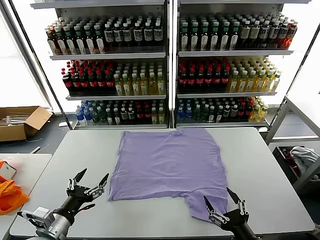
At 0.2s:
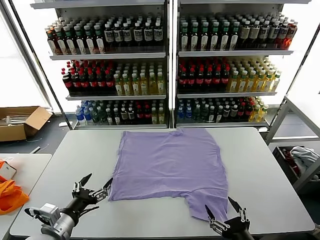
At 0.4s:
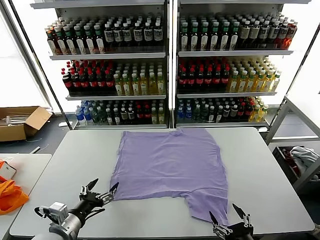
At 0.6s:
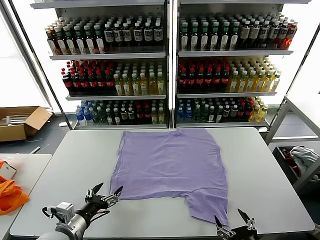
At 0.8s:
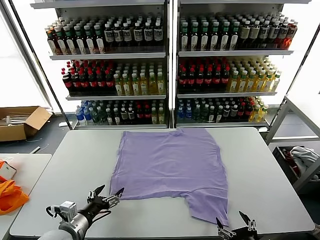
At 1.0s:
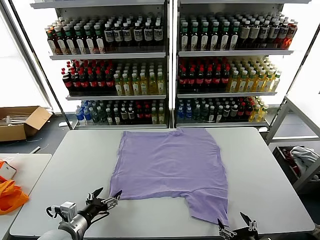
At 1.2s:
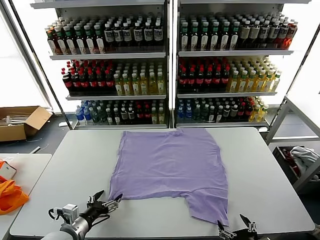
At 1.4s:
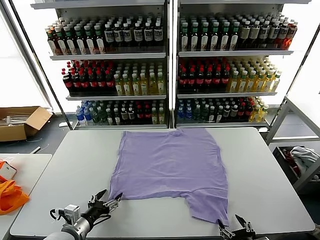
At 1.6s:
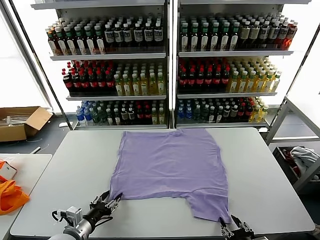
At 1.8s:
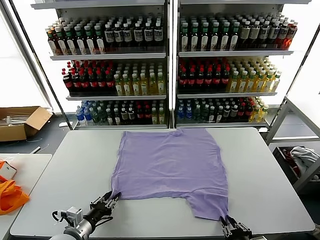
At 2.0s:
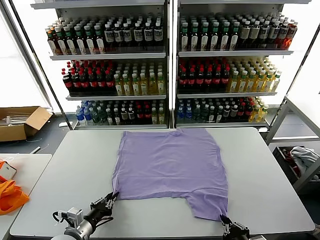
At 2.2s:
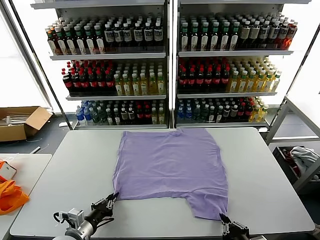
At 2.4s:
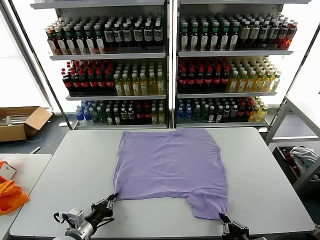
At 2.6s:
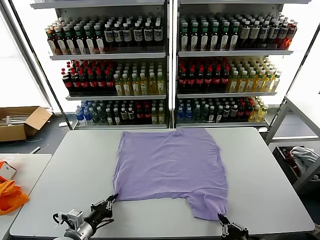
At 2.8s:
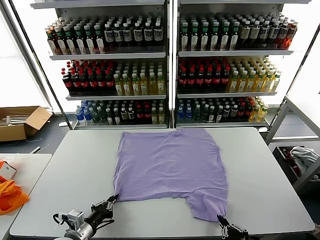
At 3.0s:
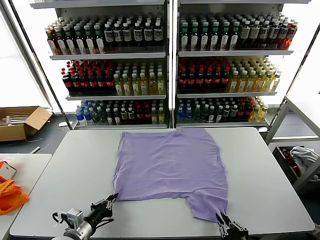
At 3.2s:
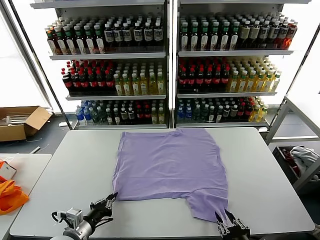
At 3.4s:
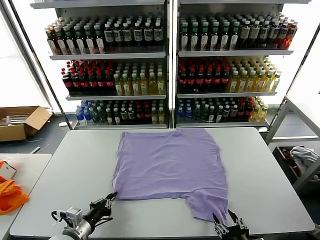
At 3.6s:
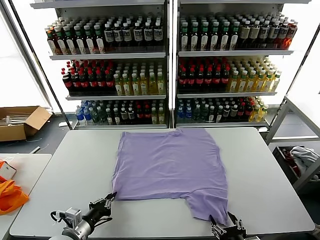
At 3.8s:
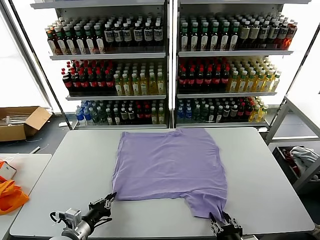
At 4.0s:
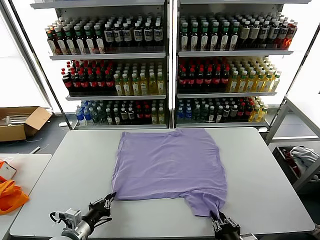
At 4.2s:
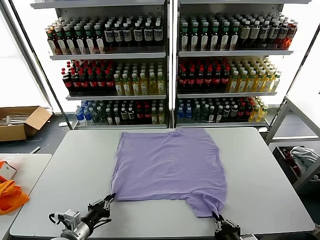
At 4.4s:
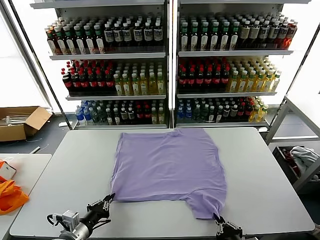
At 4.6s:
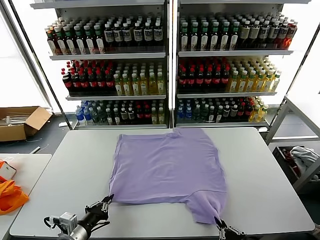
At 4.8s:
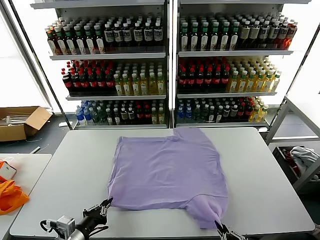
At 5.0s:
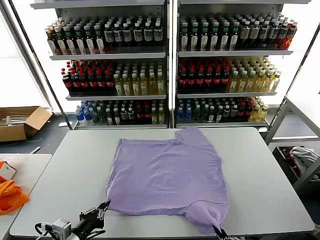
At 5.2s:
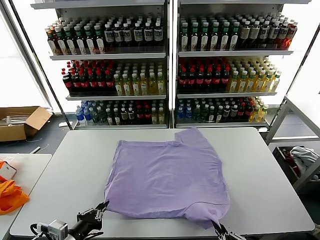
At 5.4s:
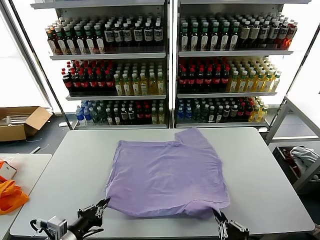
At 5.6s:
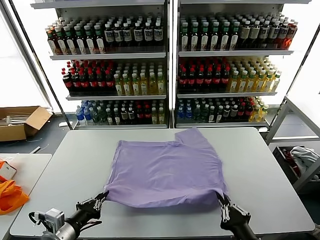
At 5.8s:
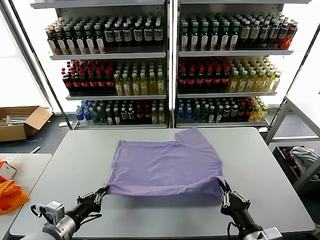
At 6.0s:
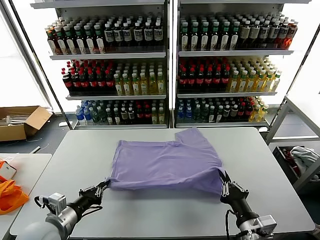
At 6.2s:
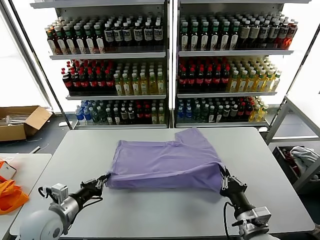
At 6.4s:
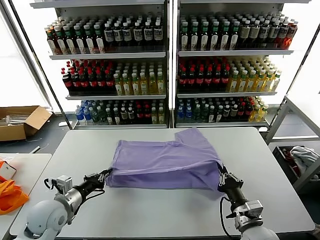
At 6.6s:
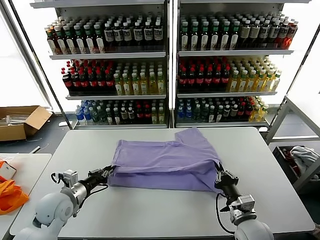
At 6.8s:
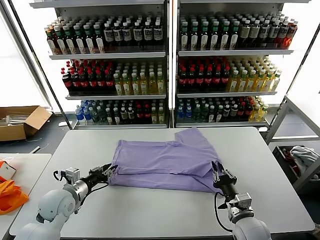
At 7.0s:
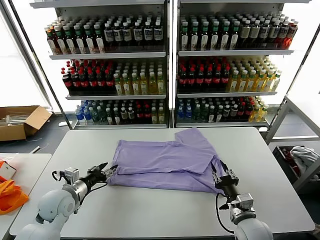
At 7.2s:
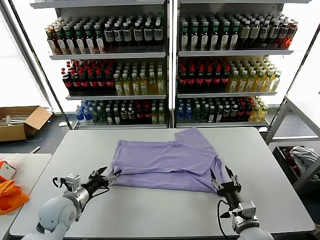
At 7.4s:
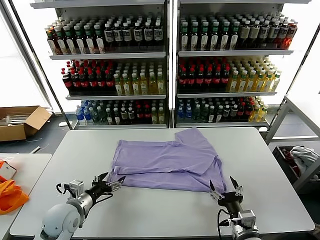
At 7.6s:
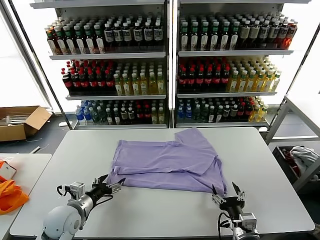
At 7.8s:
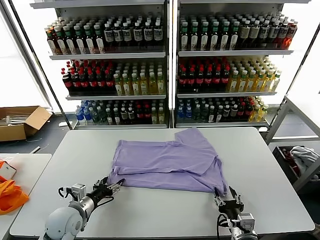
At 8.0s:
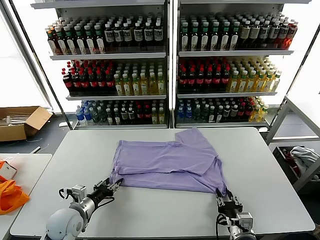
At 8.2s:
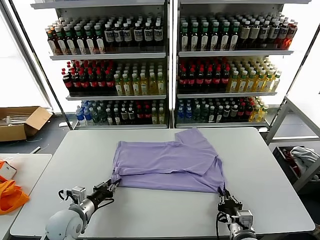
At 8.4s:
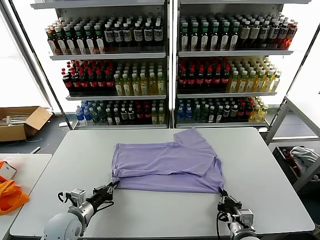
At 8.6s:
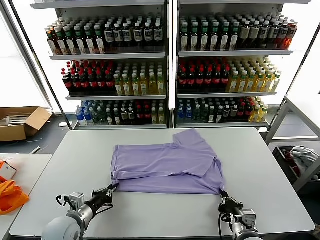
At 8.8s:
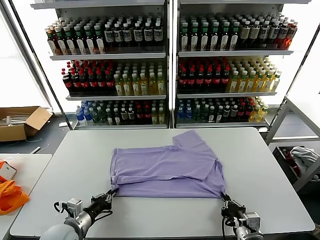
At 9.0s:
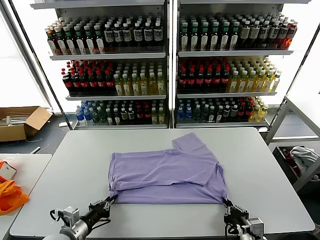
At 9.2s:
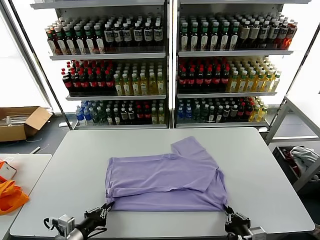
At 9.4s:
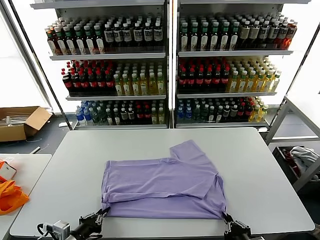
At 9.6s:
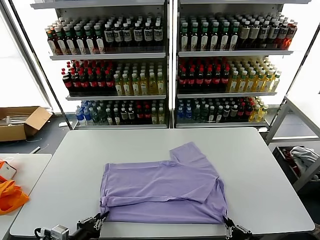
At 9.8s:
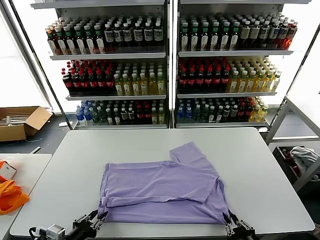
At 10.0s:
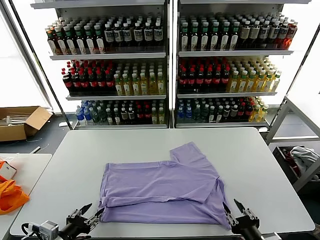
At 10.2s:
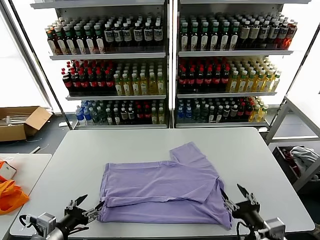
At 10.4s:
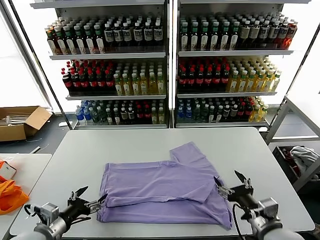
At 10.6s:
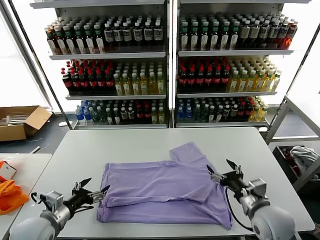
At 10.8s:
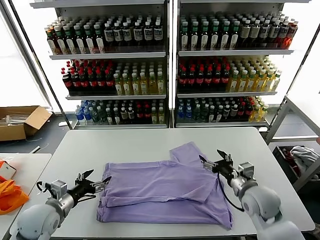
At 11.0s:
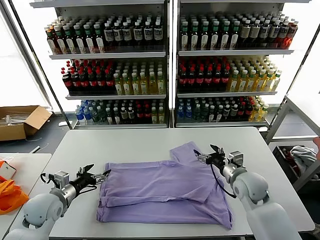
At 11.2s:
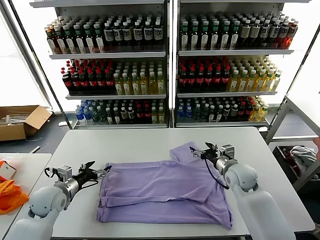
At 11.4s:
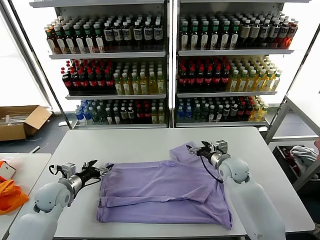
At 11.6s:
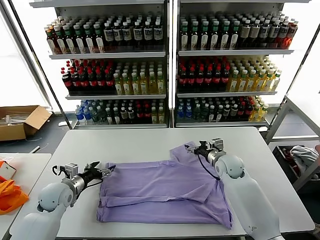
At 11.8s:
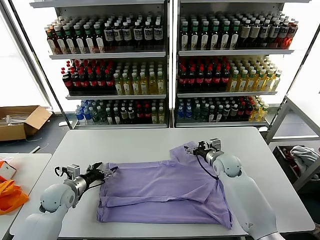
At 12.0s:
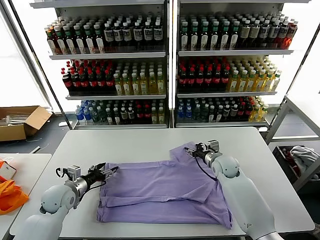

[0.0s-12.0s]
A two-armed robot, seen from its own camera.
Task of the whole recording: fold and organize the clothes.
Step, 0.0s to 4.4s: use both grippers simultaneously to clamp the lower edge of the clothing fabric.
Step, 4.6s to 7.0s: use both grippers to drag the lower edge of the fabric forward and fold it over the upper edge.
Step, 7.2s to 10.0s: Drag the clothes downward with both gripper.
1.6s to 3.0s: The left gripper closes.
3.0s to 4.4s: The right gripper opens, then closes once more.
4.4s to 6.0s: The left gripper moves upward, some 5 cm. Meanwhile the right gripper shifts some 10 cm forward.
6.0s to 7.6s: The left gripper travels forward and downward by about 10 cm, and opens its fingers. Meanwhile the right gripper moves downward, about 5 cm, and opens.
7.6s to 9.0s: The left gripper shifts about 10 cm backward, and closes up. Meanwhile the right gripper closes its fingers.
9.0s to 10.4s: The right gripper shifts some 10 cm upward and forward, and opens its fingers. Meanwhile the left gripper moves upward, some 5 cm, and opens up.
10.4s to 12.0s: The left gripper moves forward, about 15 cm, while the right gripper moves forward, roughly 25 cm.

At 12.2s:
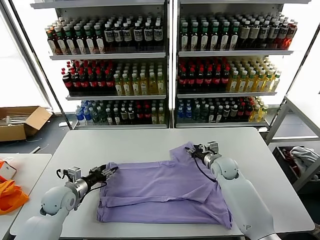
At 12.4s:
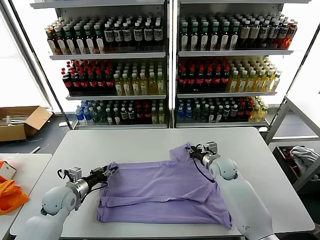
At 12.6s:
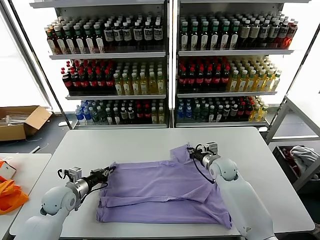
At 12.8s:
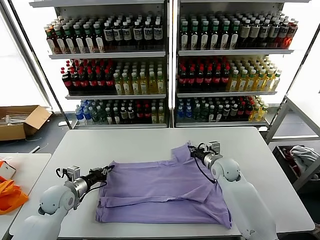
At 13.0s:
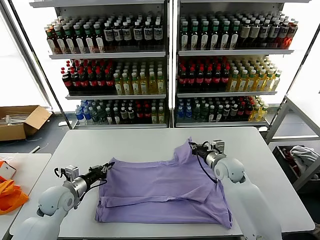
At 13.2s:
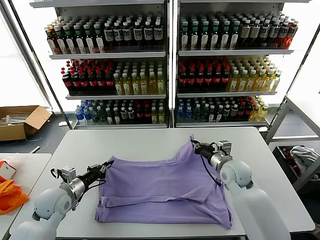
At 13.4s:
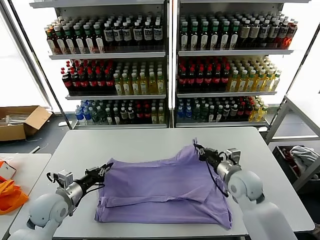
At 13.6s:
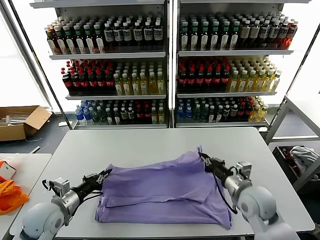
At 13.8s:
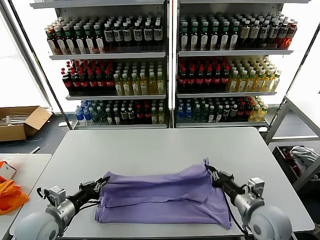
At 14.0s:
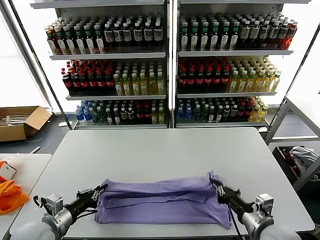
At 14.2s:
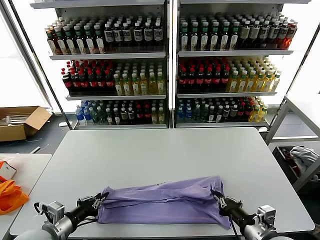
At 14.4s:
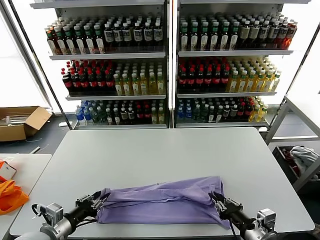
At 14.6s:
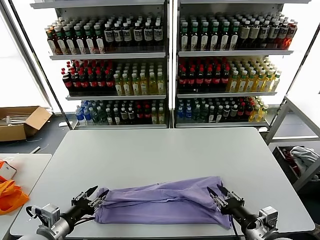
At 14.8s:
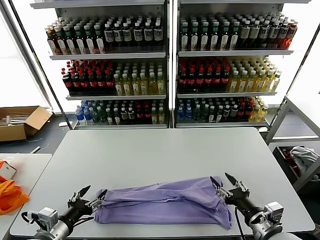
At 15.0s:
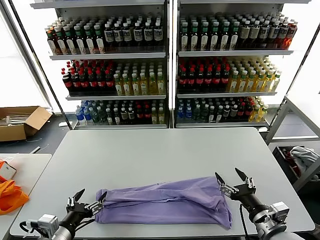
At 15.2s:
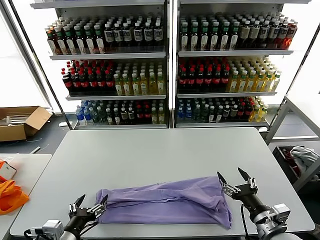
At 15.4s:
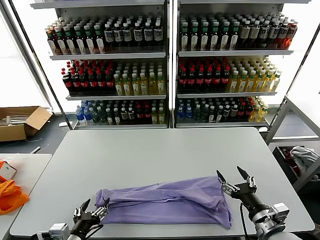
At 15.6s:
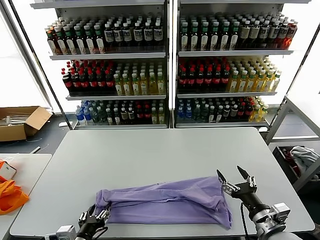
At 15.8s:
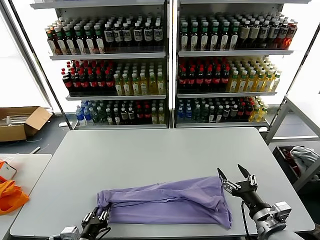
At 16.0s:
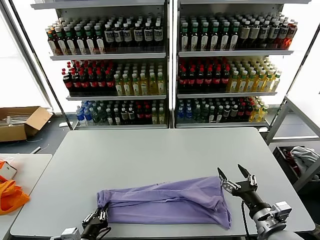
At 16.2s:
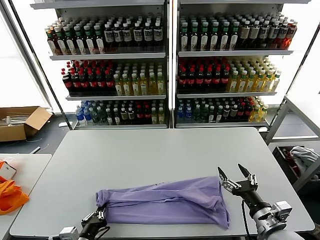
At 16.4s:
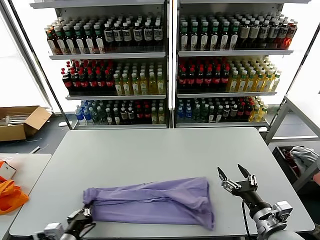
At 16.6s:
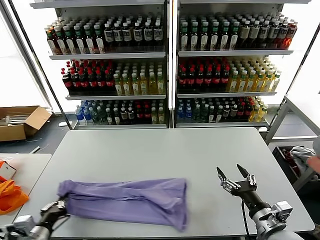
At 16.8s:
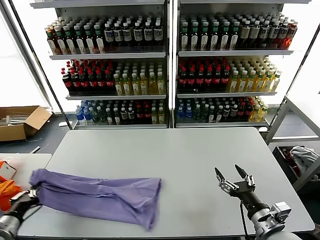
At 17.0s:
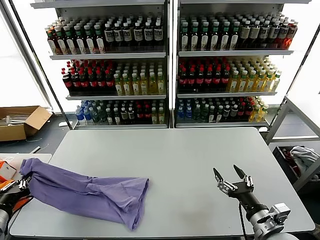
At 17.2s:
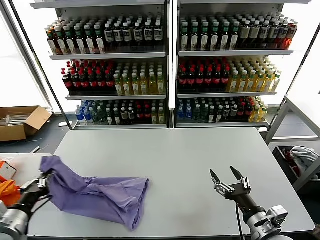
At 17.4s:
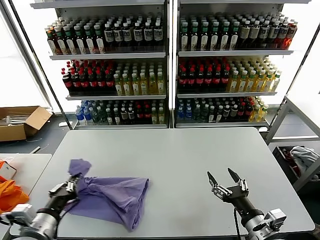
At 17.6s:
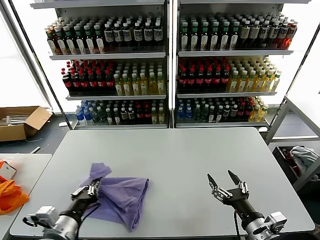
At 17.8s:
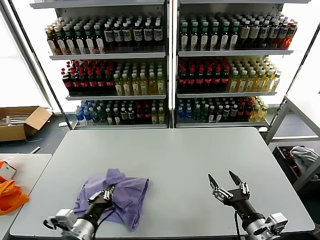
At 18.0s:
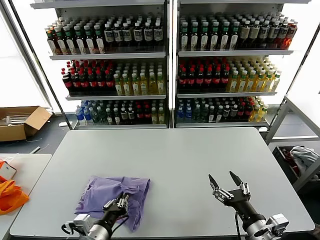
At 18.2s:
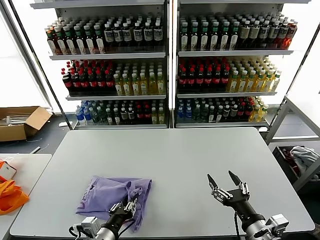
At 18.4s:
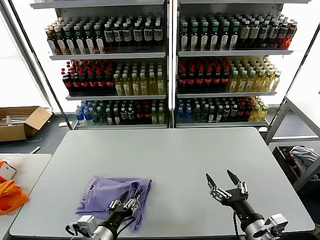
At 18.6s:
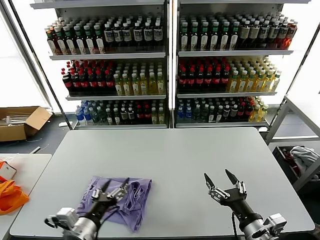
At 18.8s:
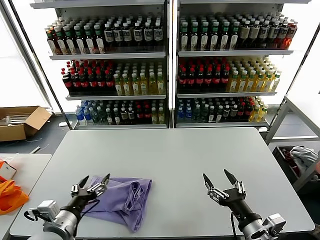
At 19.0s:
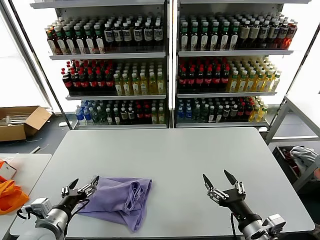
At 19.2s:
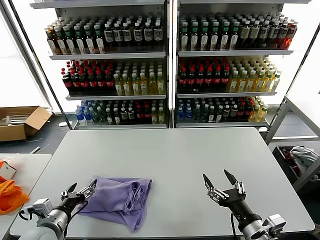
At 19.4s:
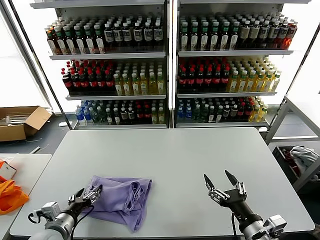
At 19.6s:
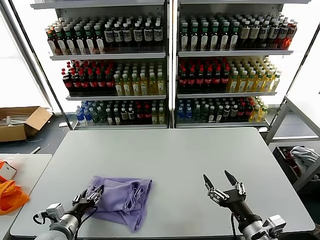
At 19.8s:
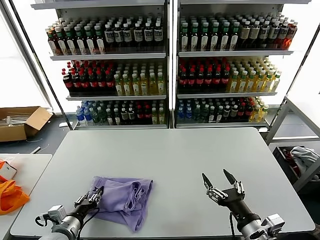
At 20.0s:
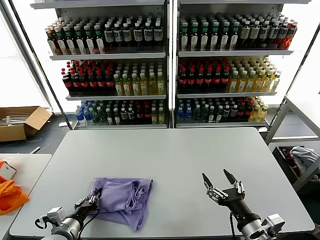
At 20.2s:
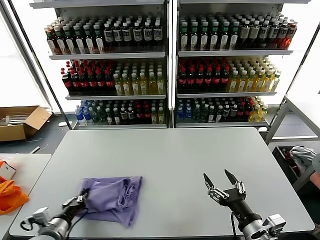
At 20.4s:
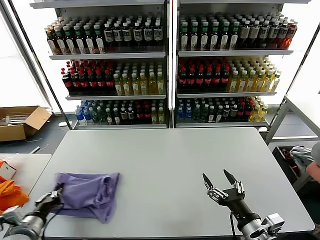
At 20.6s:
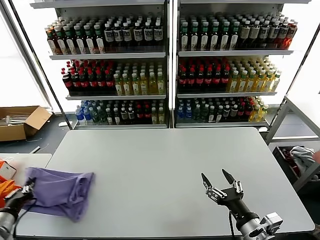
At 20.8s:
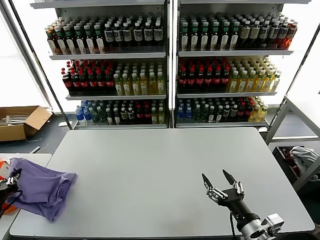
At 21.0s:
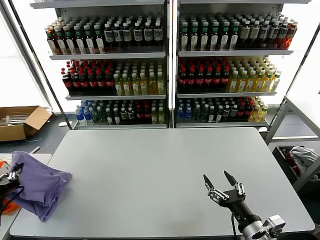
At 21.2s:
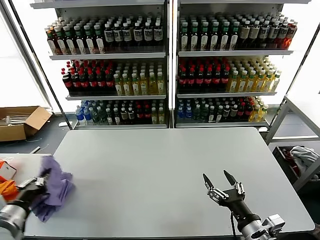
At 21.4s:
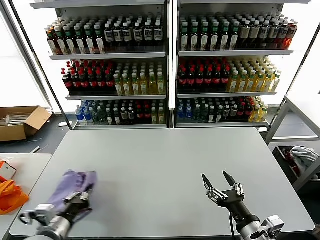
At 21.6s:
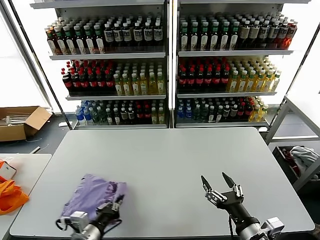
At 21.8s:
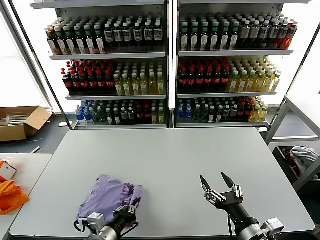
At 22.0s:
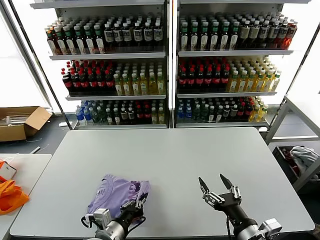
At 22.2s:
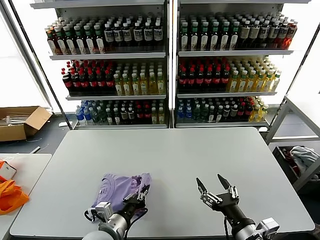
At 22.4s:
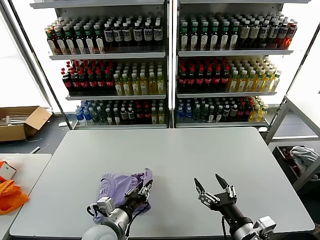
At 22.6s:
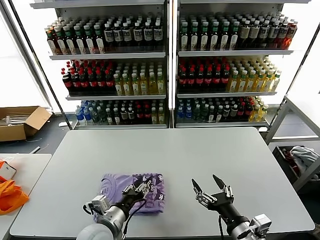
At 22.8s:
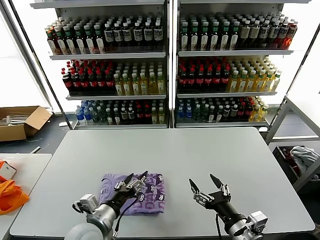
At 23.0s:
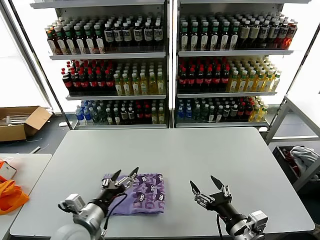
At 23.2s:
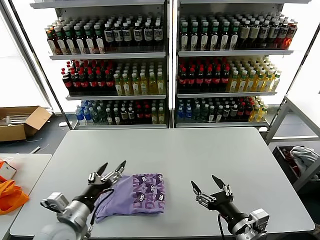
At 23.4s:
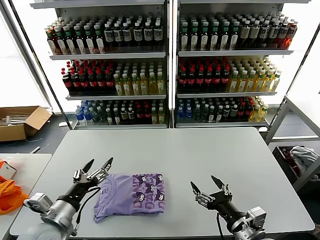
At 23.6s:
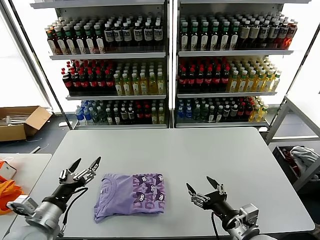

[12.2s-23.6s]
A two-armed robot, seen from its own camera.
Task of the whole recording: fold and organize the clothes.
Step, 13.0s to 14.6s: use both grippers to drag the upper edge of the fabric backward and fold it over the lower edge.
Step, 14.8s to 16.0s: use the left gripper to clamp the left edge of the fabric.
Step, 16.2s to 18.4s: use the left gripper to drag the left edge of the fabric to the left and folds it over the right edge.
Step, 18.6s to 22.6s: Flip the folded clothes over with left gripper.
12.2s to 13.6s: The right gripper moves backward and upward, approximately 20 cm, and closes its fingers. The left gripper goes roughly 10 cm backward and upward, and closes.
13.6s to 15.0s: Both grippers travel together backward, roughly 10 cm. The right gripper opens. The left gripper opens.
15.0s to 16.4s: The left gripper moves downward, approximately 5 cm, and closes.
16.4s to 17.8s: The left gripper moves upward, roughly 5 cm, and goes to the left and returns, roughly 15 cm each way.
17.8s to 19.4s: The left gripper is displaced to the left by roughly 10 cm, and opens up.
19.4s to 20.8s: The left gripper travels to the left and upward by roughly 20 cm, and closes up.
20.8s to 22.2s: The left gripper travels to the right by some 30 cm.
22.2s to 23.6s: The left gripper shifts about 15 cm to the left and upward, and opens up.
